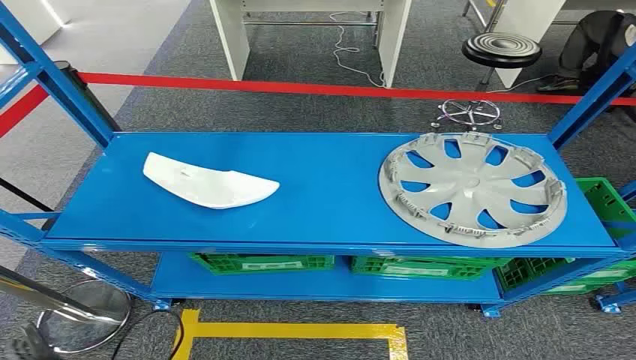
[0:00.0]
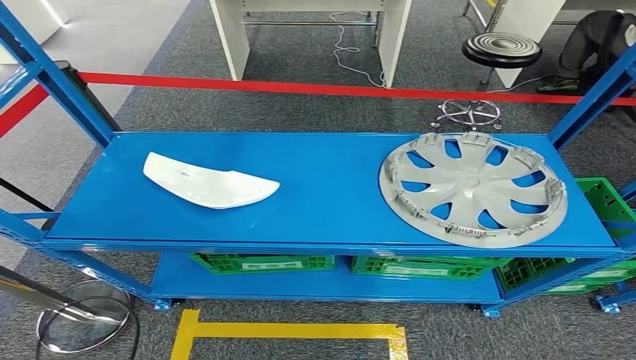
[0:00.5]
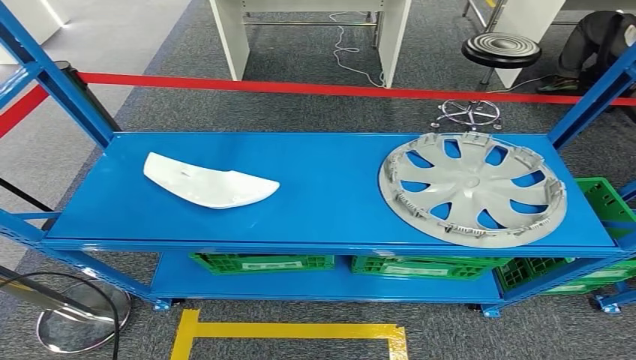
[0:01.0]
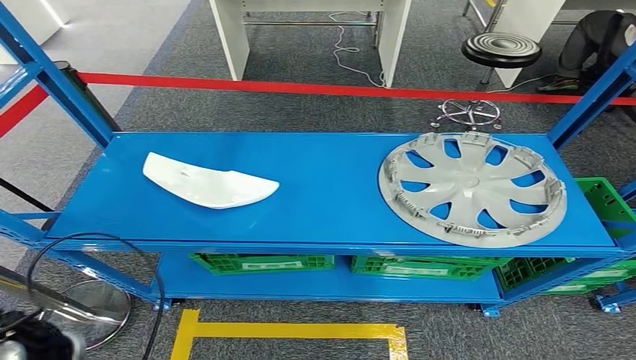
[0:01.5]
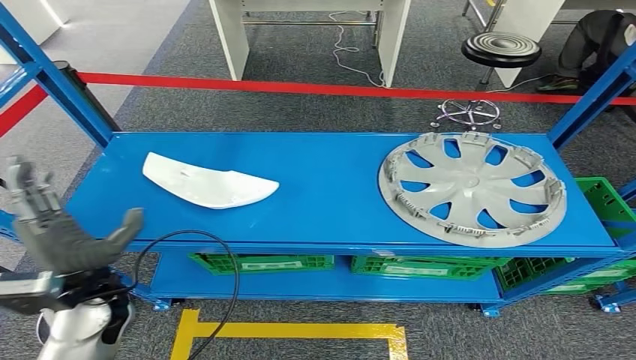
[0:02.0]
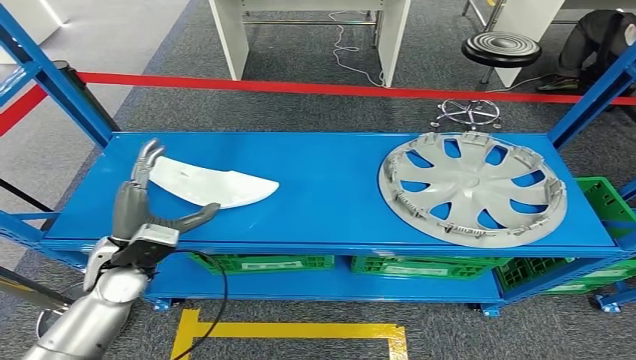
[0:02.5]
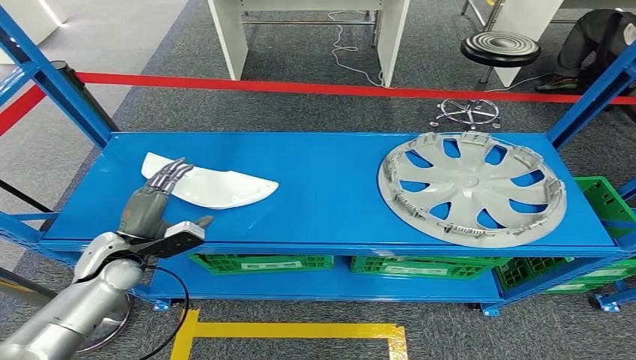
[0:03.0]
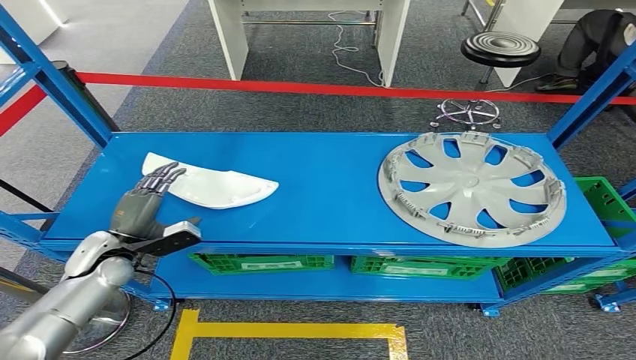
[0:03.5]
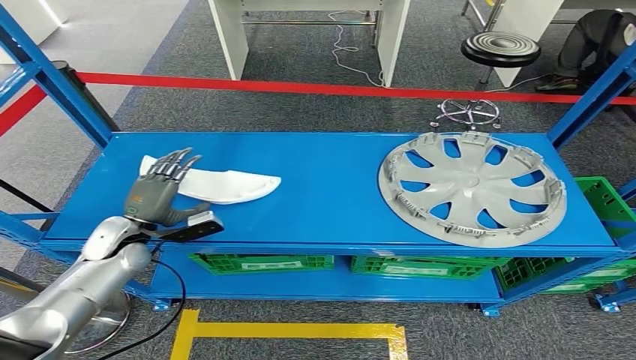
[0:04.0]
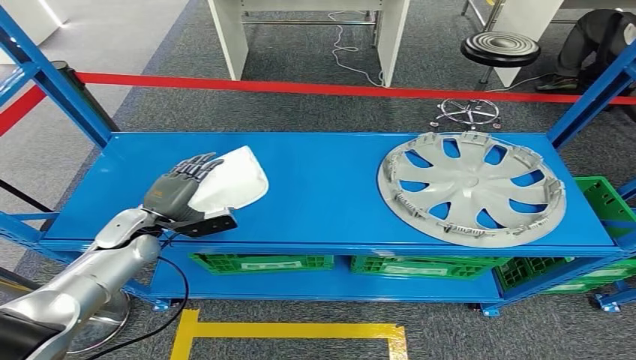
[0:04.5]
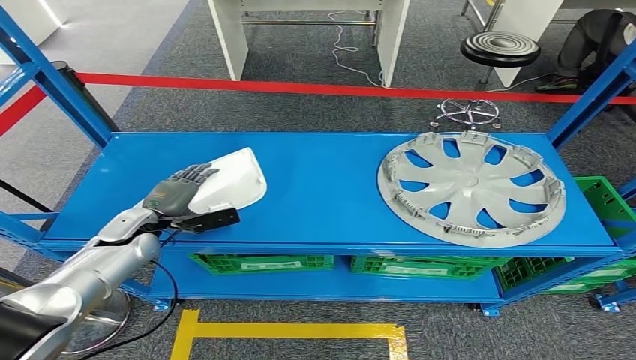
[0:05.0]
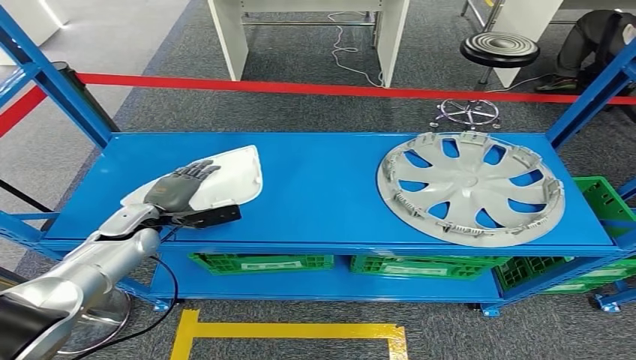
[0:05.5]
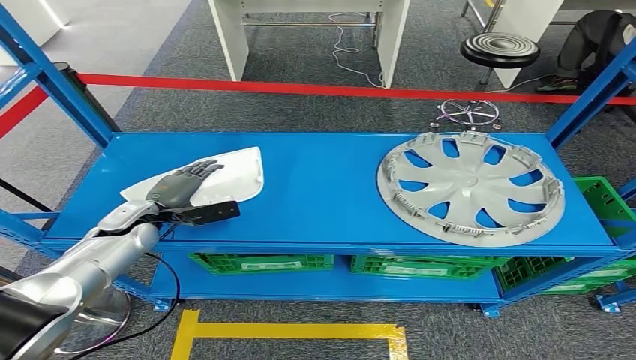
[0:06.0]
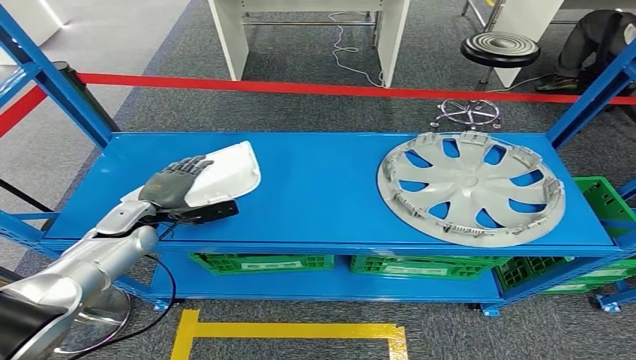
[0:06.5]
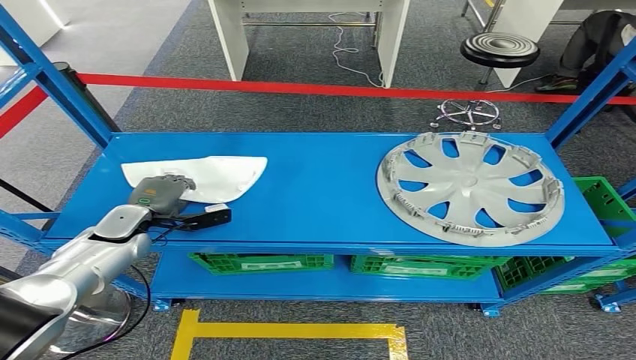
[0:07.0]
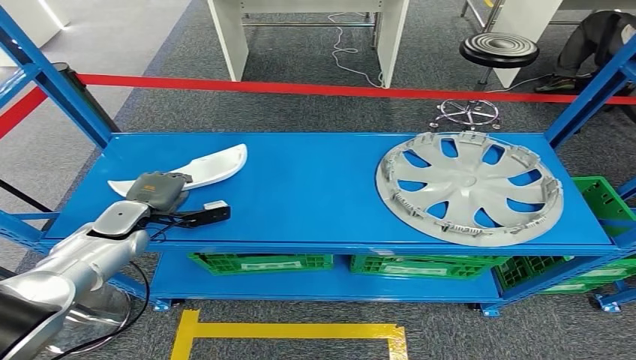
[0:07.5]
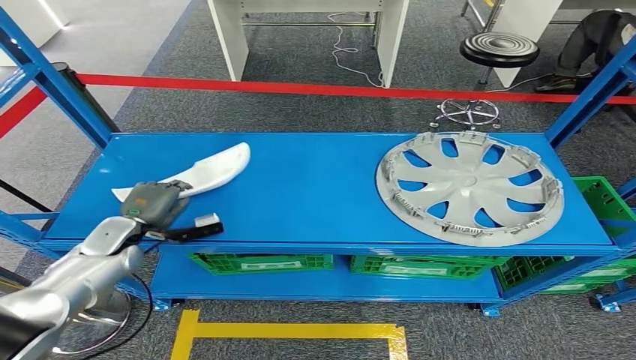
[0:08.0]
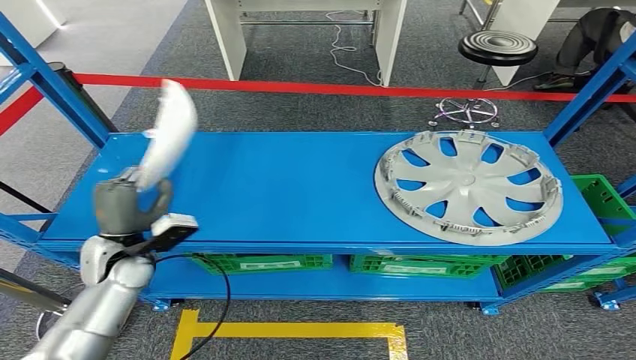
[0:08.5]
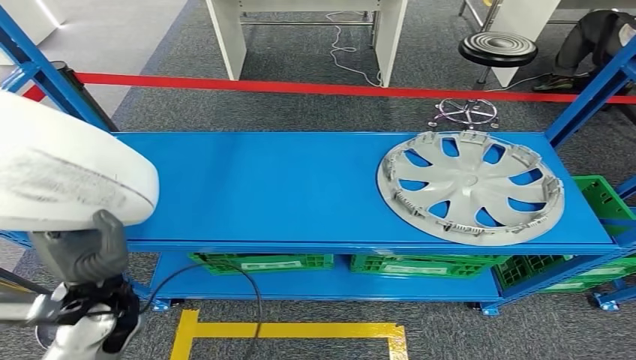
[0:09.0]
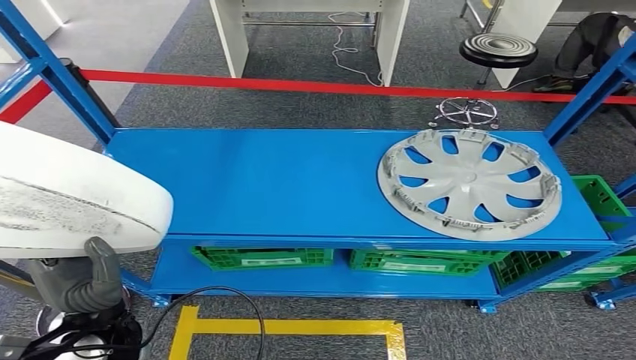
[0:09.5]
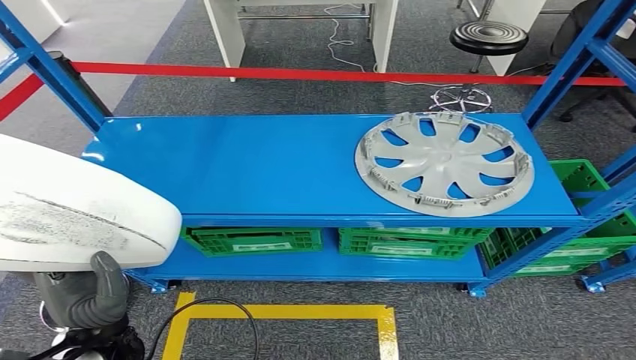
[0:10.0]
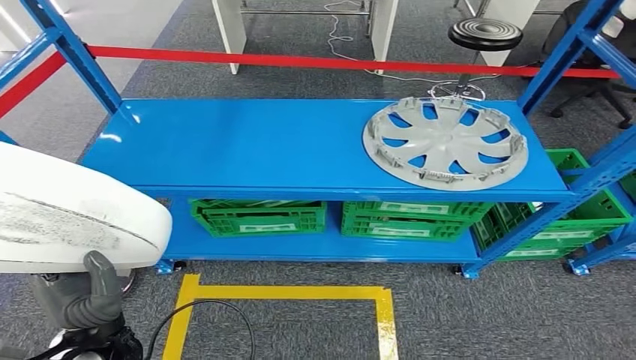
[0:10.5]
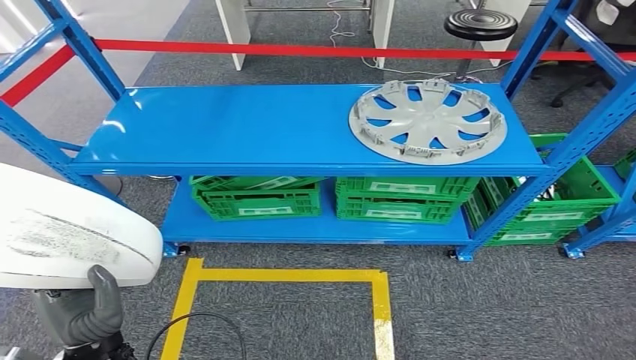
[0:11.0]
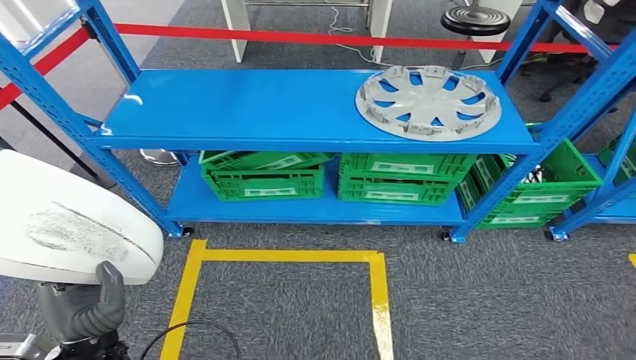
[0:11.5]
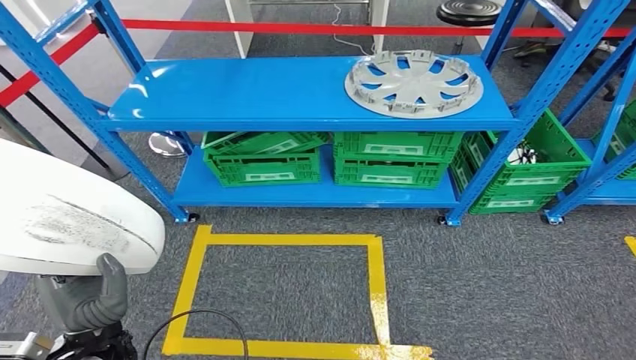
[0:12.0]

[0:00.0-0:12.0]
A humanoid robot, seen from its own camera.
Step, 0:00.0 to 0:07.5: Pick up the small component from the shelf.
0:02.0 to 0:04.0: The left hand moves forward, downward and to the left, approximately 15 cm.
0:06.0 to 0:08.0: The left hand shifts by approximately 5 cm.

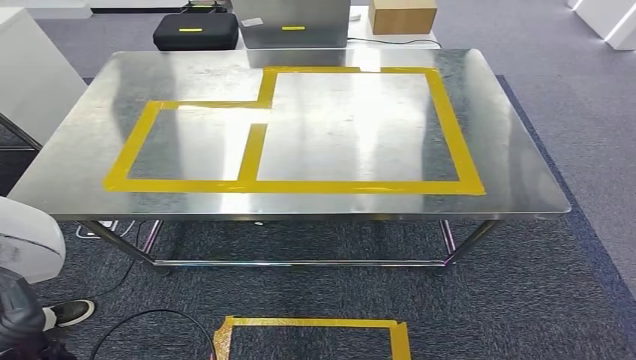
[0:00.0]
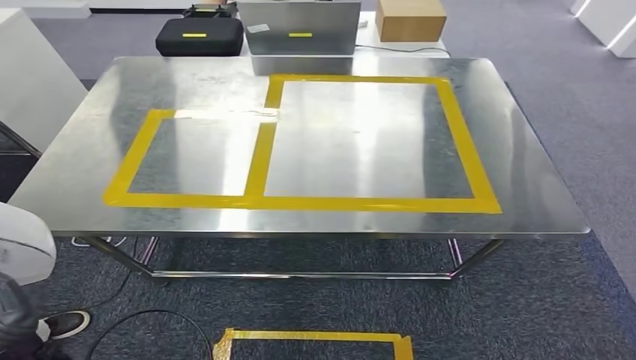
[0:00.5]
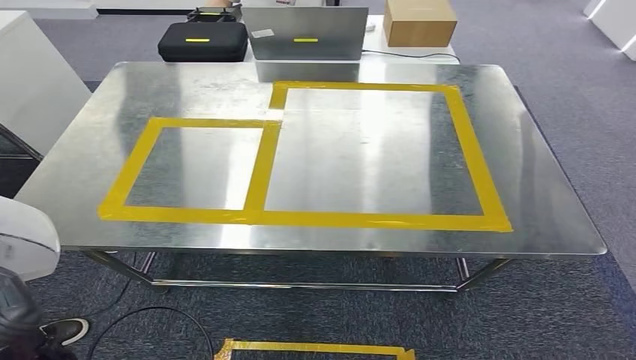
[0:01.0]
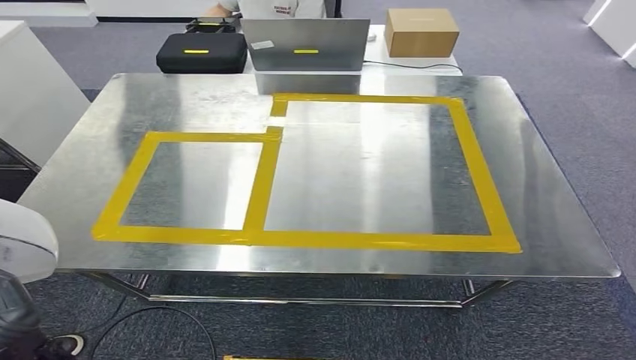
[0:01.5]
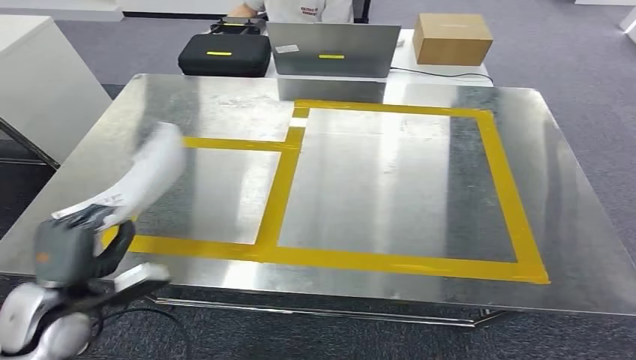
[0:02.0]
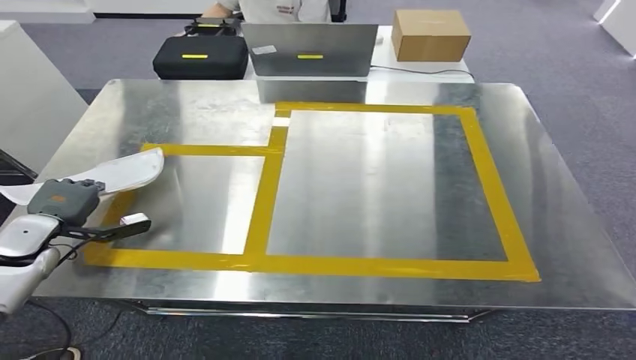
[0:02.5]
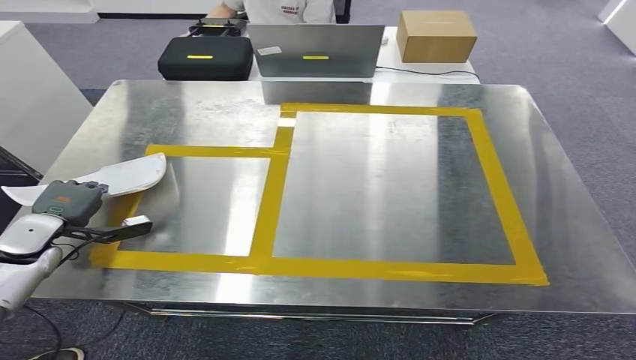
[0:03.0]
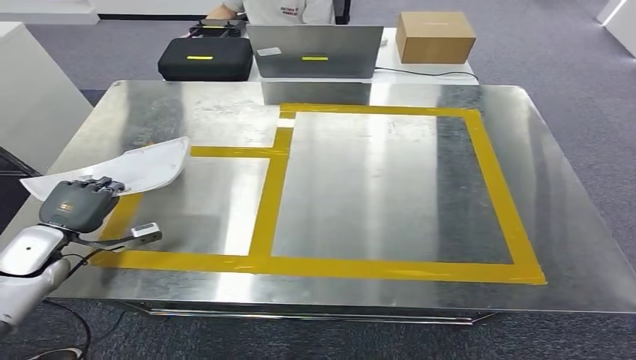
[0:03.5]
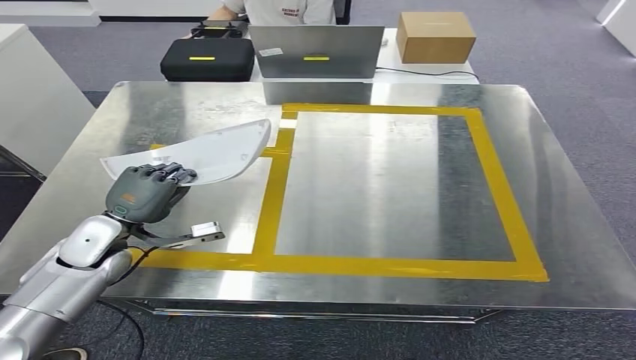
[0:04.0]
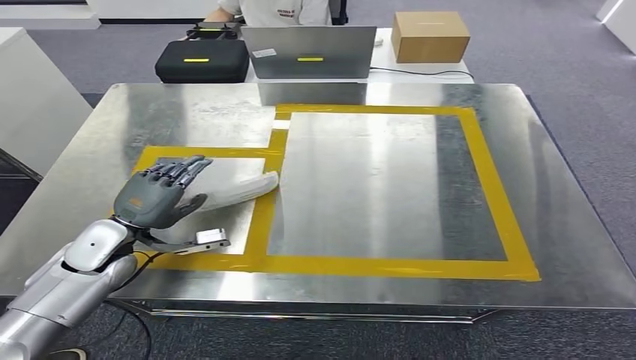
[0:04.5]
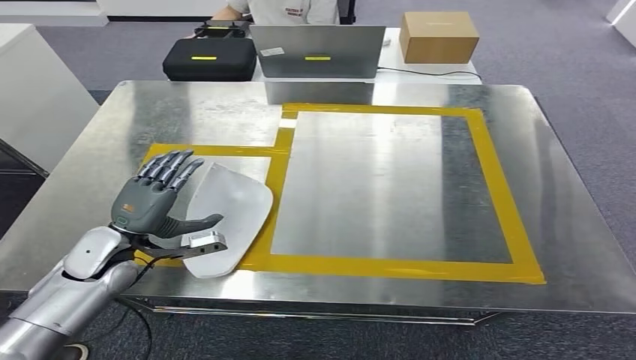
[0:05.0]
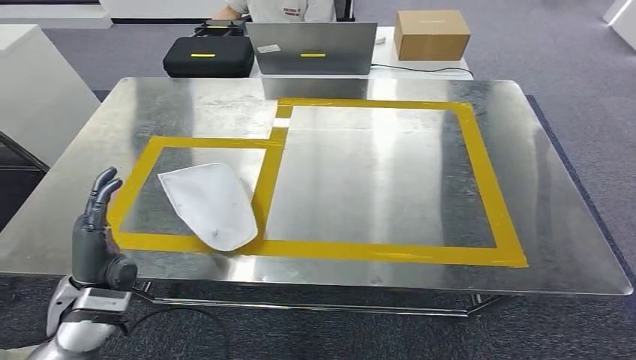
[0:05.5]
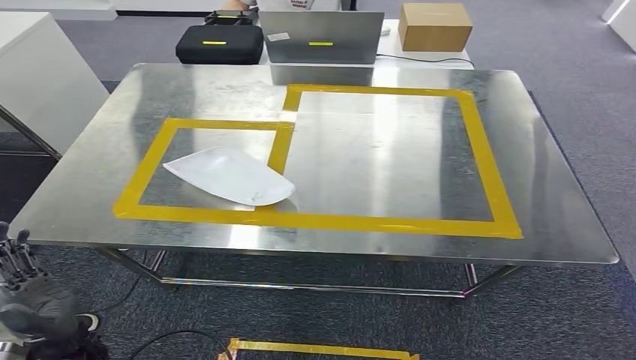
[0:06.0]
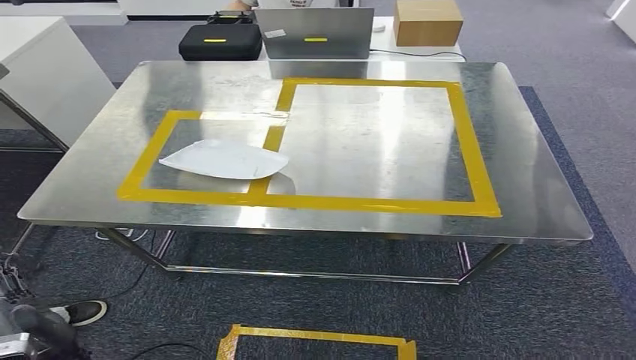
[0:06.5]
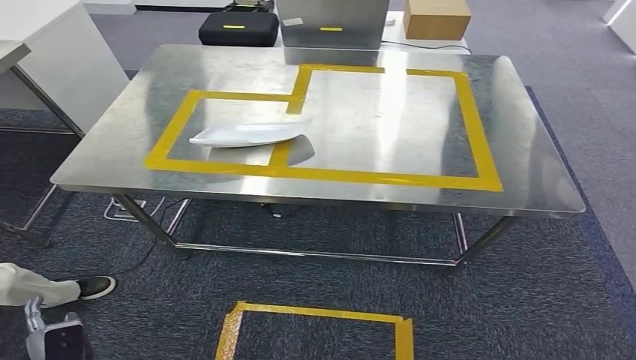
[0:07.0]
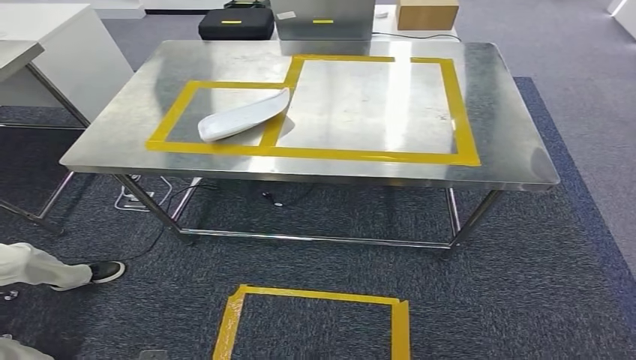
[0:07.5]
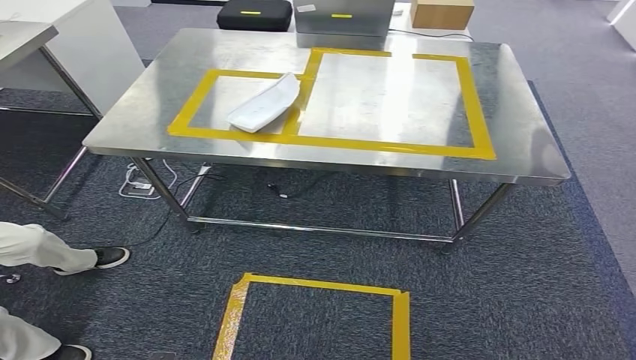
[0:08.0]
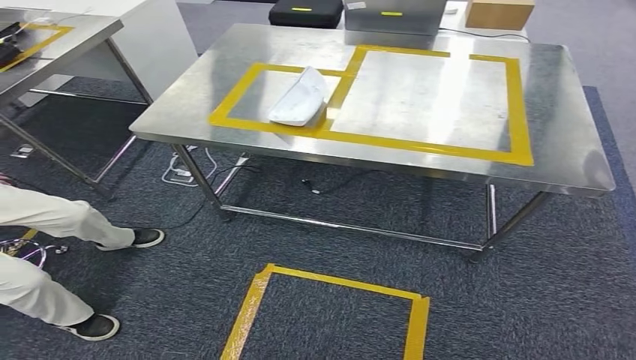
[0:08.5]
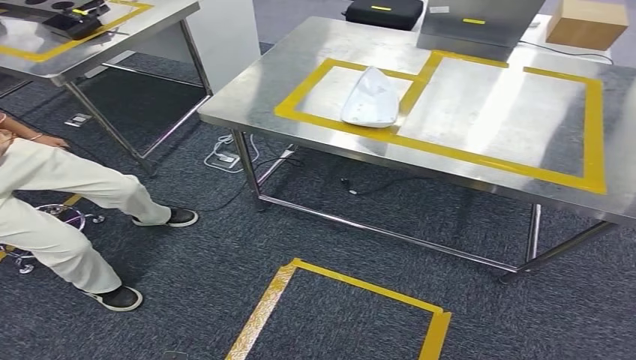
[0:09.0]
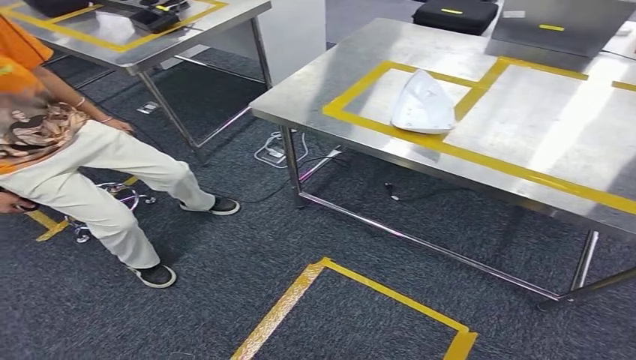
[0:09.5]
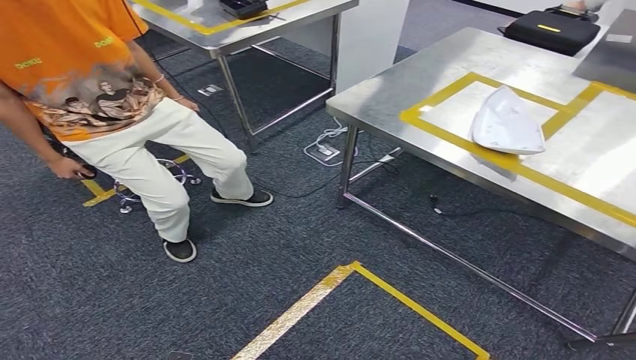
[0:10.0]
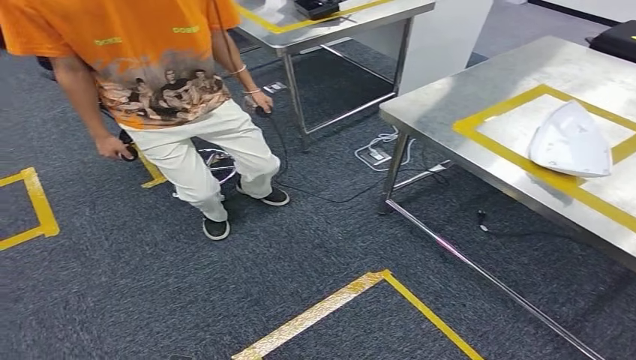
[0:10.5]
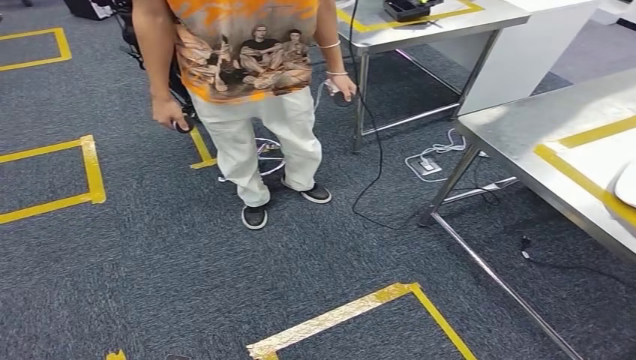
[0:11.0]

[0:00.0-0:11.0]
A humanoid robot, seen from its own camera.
Step, 0:00.0 to 0:06.5: Insert the small component into the corresponding slot on the workbench.
